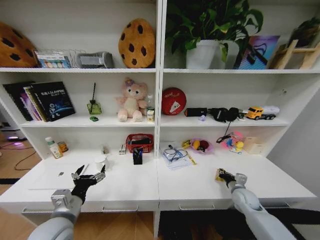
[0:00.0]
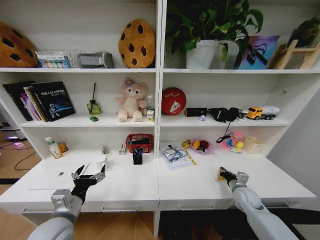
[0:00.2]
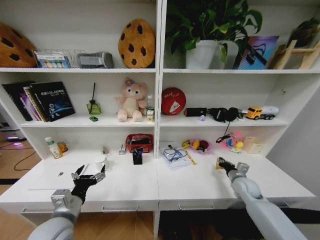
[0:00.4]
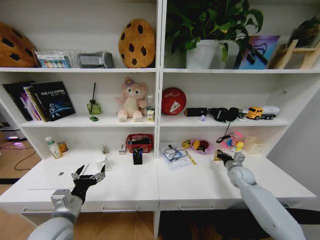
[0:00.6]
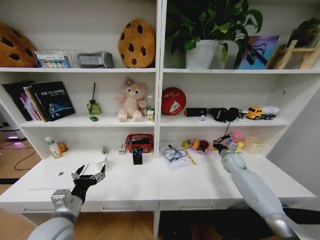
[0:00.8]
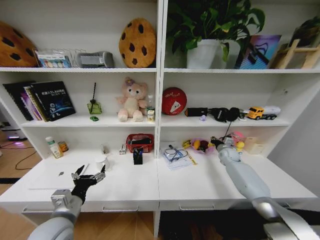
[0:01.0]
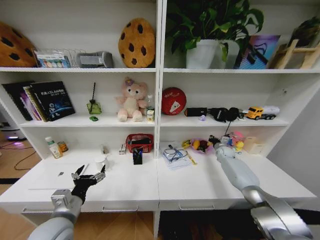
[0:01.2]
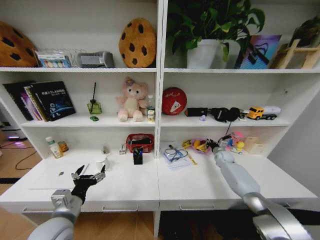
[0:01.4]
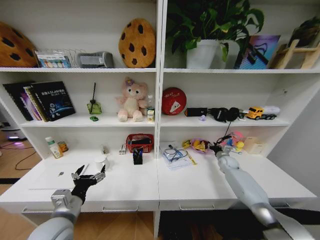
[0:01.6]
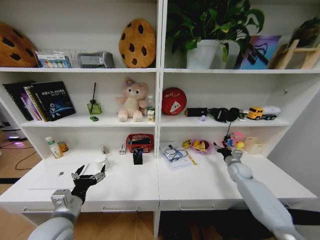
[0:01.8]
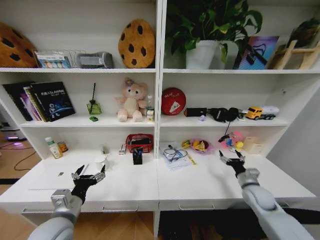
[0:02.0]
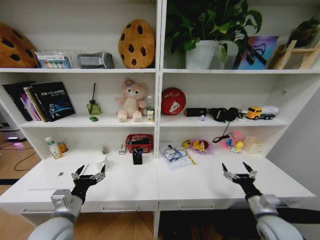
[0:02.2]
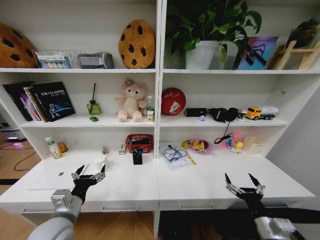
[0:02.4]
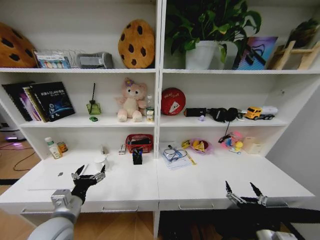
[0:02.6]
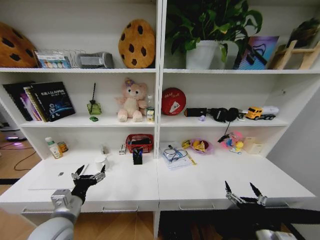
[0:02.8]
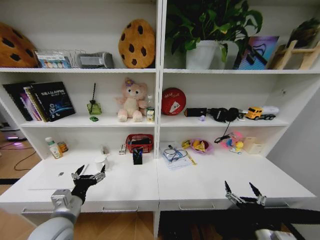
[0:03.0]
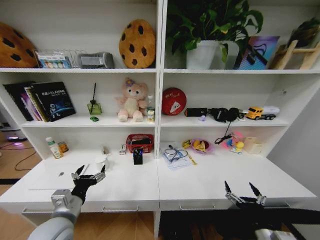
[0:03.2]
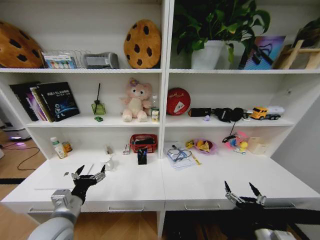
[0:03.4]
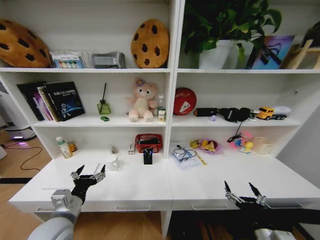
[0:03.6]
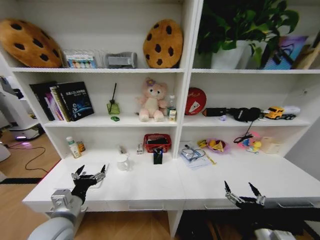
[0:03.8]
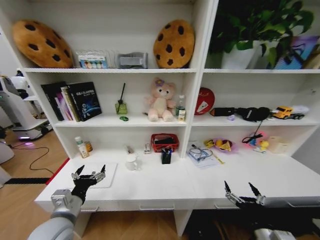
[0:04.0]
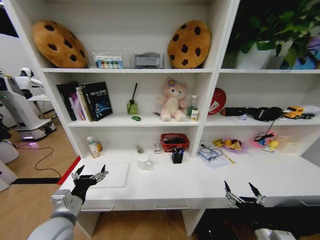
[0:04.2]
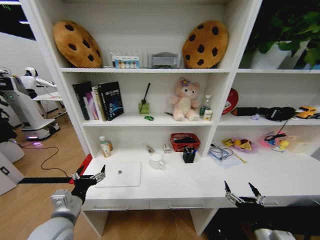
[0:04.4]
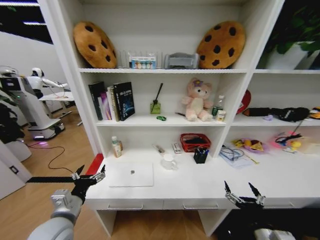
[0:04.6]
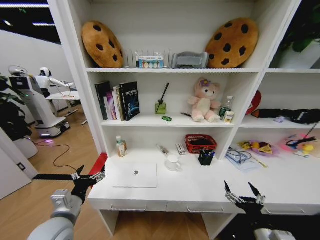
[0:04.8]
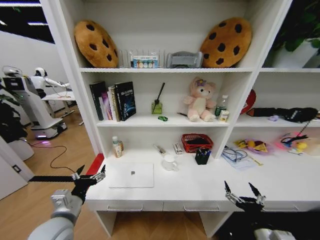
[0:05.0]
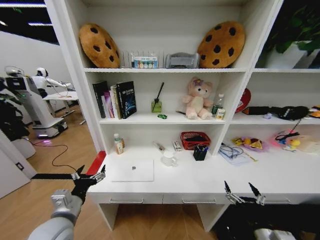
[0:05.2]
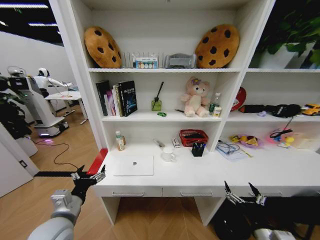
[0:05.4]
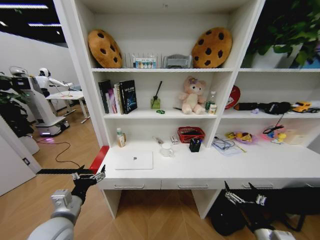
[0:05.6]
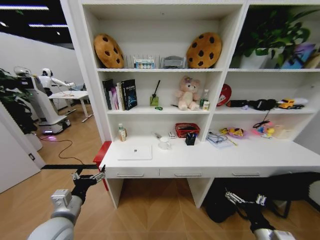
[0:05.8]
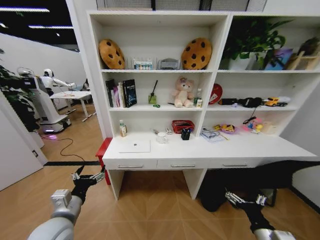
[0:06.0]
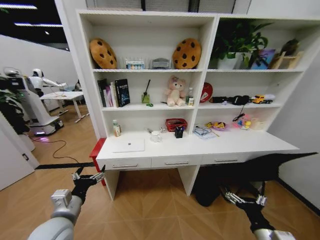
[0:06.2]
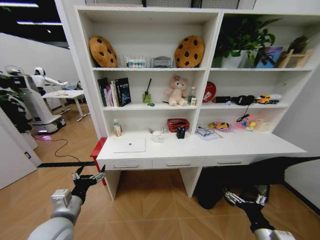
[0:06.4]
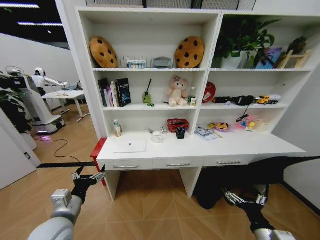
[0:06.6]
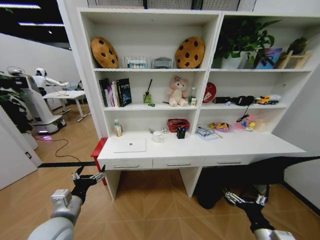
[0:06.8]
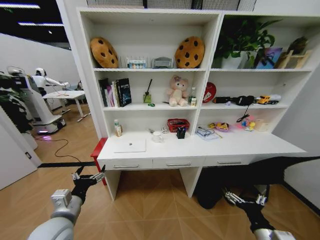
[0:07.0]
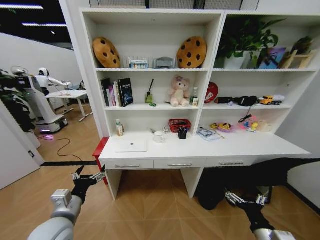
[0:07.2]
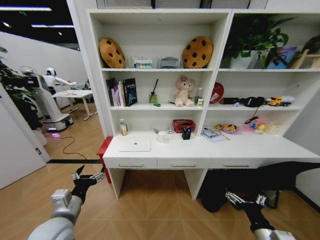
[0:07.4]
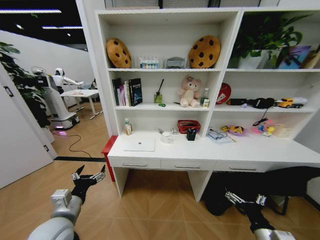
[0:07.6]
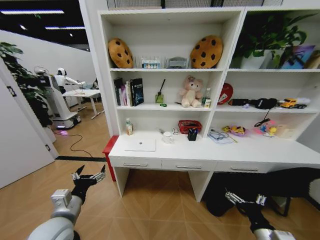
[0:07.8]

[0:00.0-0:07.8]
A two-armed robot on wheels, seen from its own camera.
Task of the whole recording: Organize the objects on the table.
0:00.0 to 0:01.6: The right gripper goes about 20 cm forward.
0:01.6 to 0:03.2: The right gripper moves backward, approximately 40 cm, and opens up.

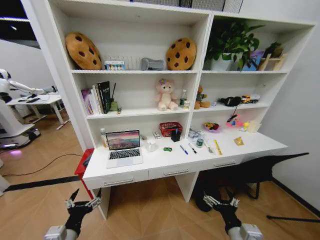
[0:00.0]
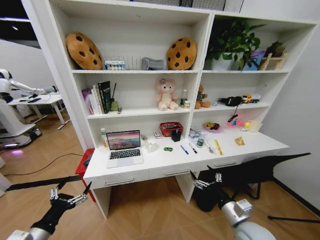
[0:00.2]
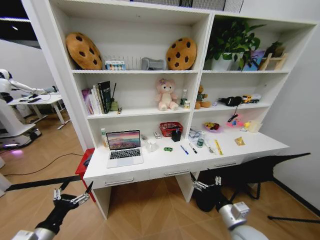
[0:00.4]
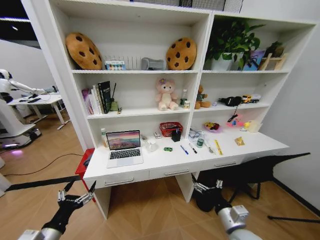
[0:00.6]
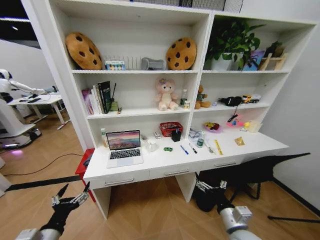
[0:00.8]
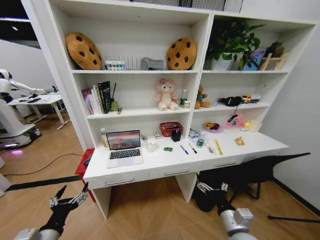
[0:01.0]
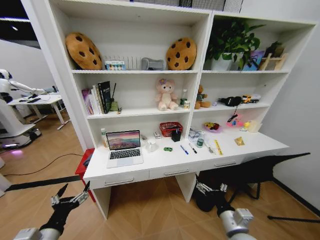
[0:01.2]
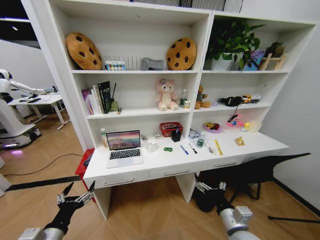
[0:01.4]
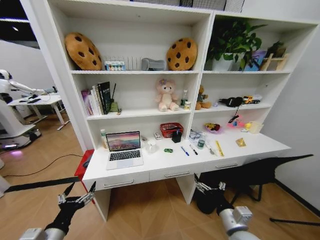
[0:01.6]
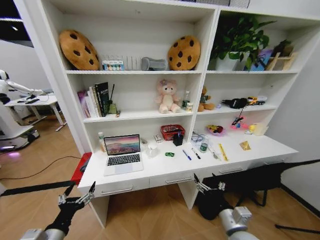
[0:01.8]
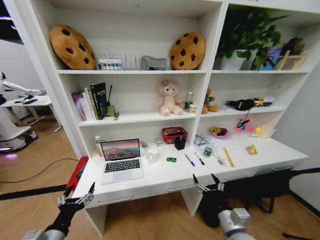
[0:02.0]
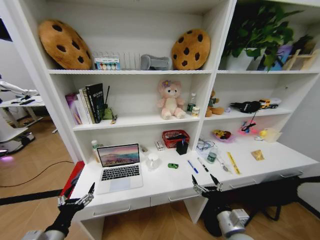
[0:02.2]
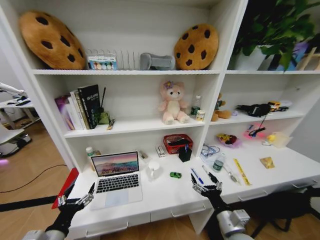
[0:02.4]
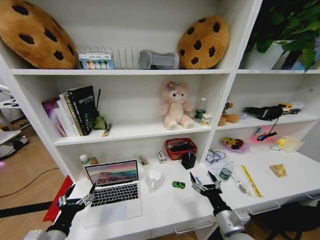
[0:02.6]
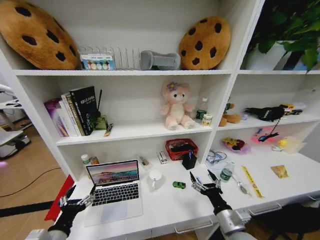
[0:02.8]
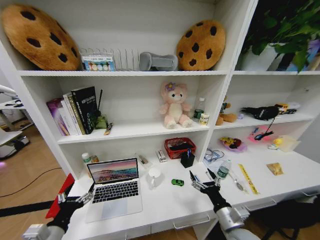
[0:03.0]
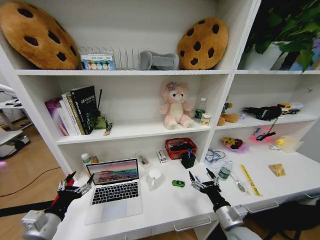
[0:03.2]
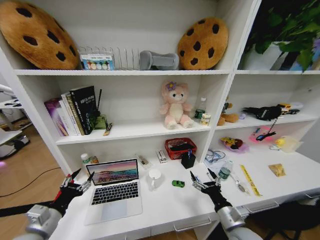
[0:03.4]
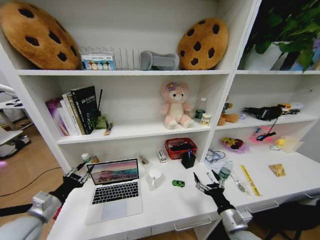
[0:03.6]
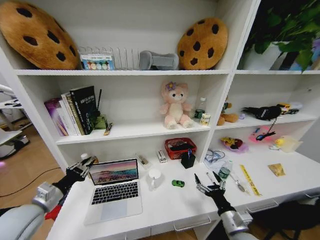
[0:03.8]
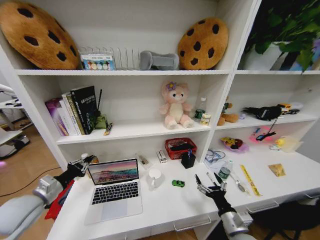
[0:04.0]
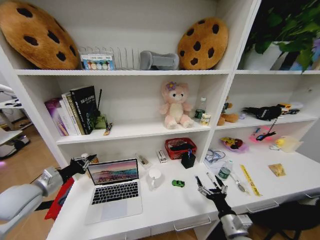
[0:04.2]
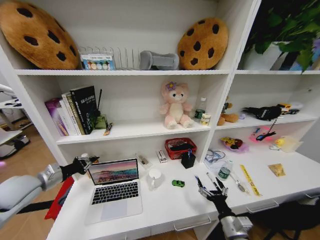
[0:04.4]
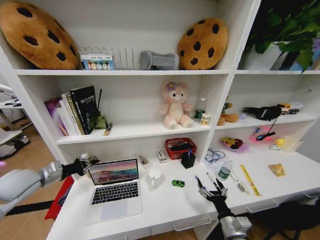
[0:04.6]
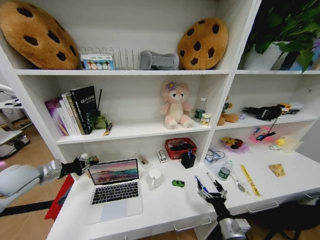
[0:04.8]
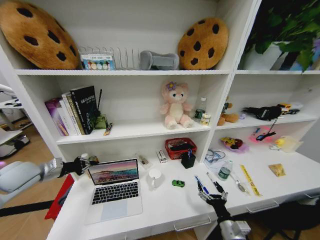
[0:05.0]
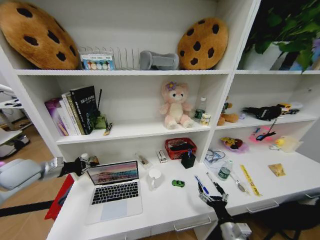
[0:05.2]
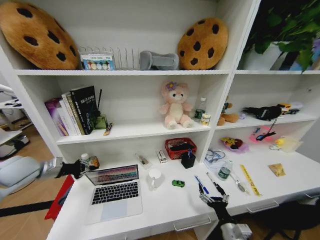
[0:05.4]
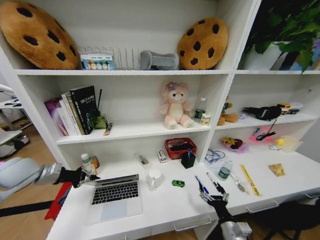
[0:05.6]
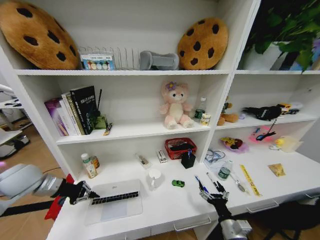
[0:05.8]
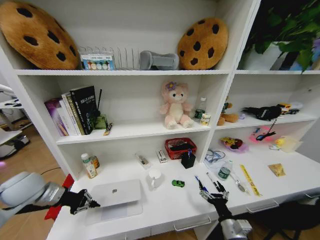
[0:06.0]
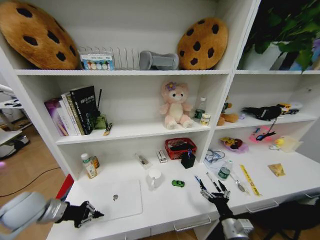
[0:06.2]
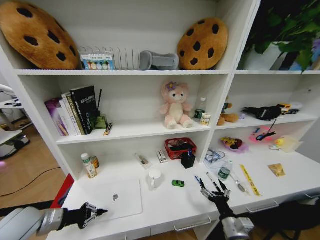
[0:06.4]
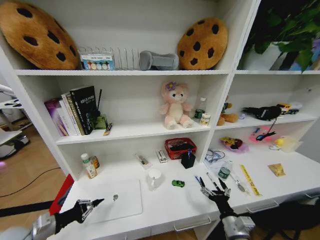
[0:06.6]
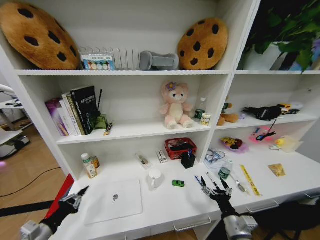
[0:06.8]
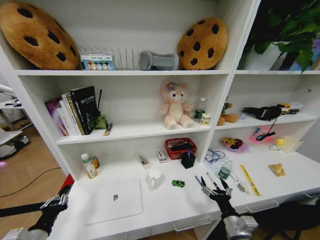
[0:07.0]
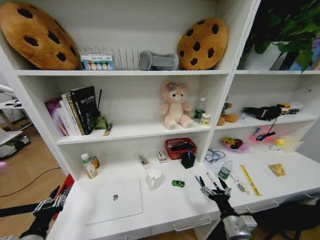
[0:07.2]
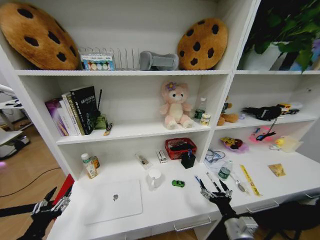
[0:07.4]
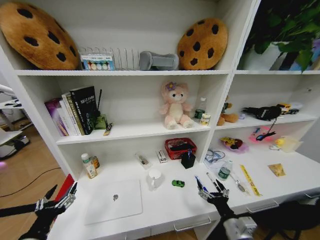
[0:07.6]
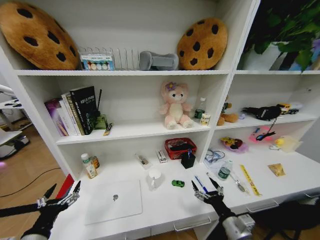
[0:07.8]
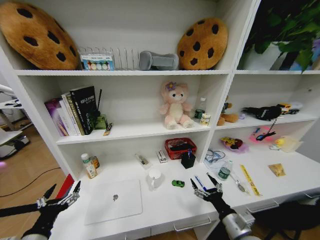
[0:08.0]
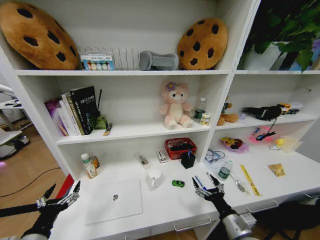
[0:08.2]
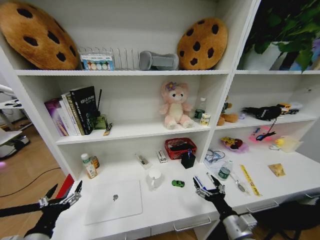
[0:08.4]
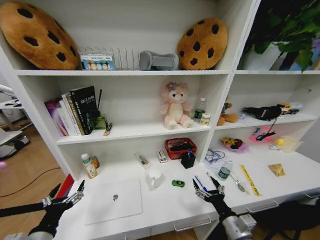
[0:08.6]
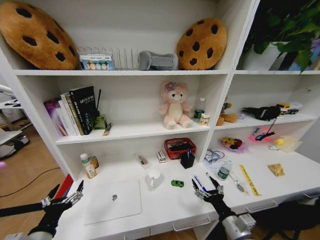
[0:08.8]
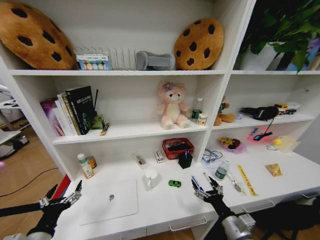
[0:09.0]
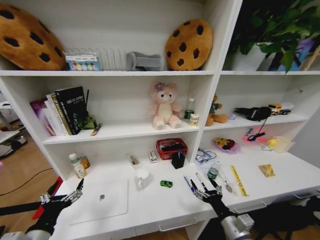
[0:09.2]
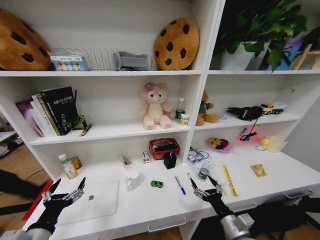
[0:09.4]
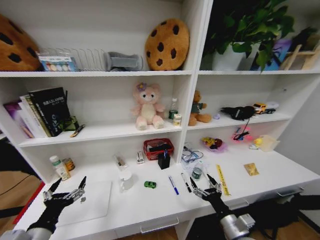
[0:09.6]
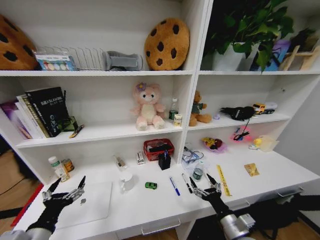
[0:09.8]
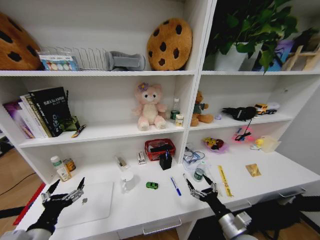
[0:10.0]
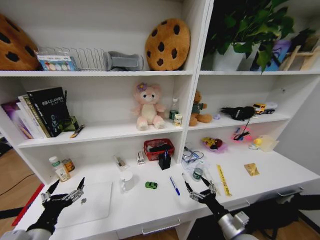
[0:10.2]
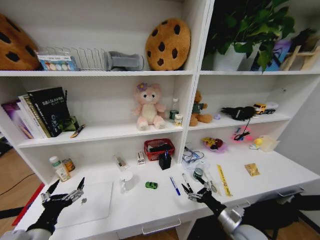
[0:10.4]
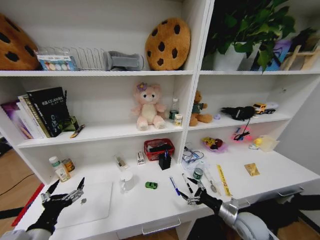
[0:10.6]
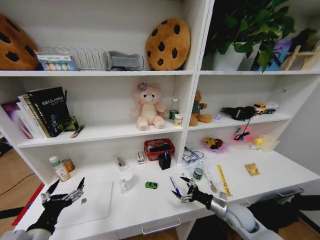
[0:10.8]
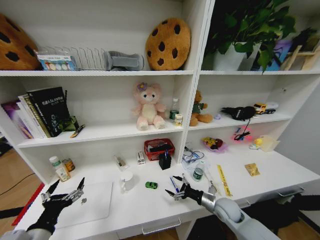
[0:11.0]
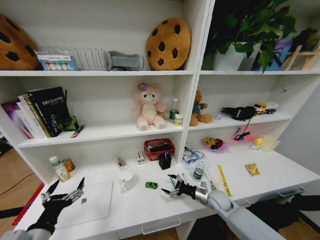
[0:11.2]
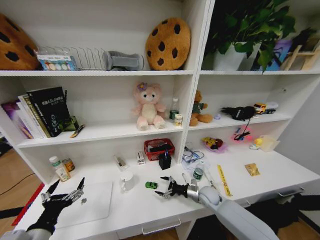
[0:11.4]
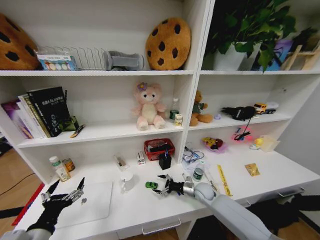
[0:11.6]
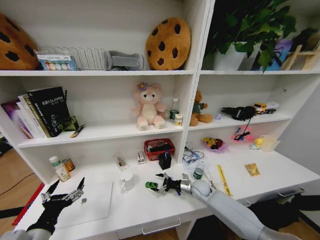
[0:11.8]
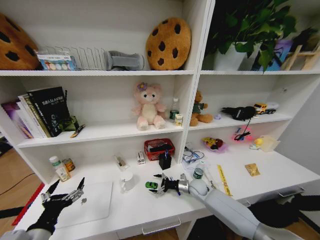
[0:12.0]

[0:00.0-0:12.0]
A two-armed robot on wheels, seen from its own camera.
Task of the whole recording: Organize the objects on the table.
0:03.0 to 0:04.4: The right gripper ends up roughly 5 cm from where it was. The left gripper moves forward, to the left and upward, about 25 cm, and closes its fingers.
0:06.0 to 0:07.6: The right gripper moves upward, approximately 5 cm. Meanwhile the left gripper is displaced backward and downward by approximately 25 cm, and opens.
0:07.6 to 0:09.0: There are only small adjustments of the grippers.
0:09.0 to 0:10.4: The right gripper goes some 5 cm forward.
0:10.4 to 0:12.0: The right gripper moves forward and to the left, some 25 cm.

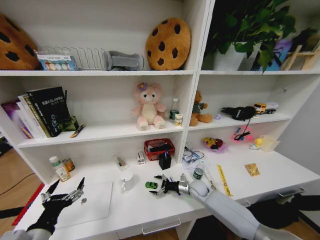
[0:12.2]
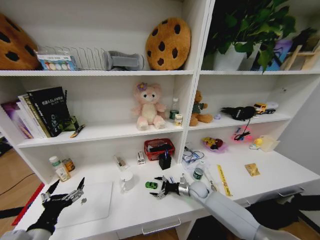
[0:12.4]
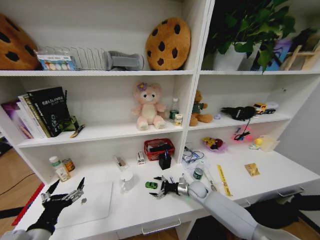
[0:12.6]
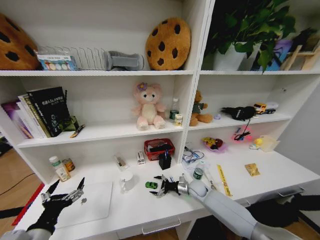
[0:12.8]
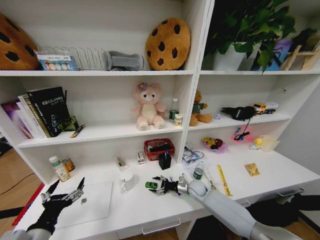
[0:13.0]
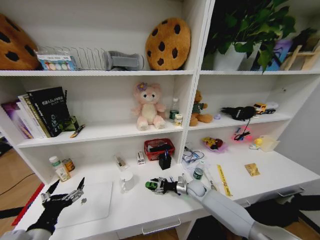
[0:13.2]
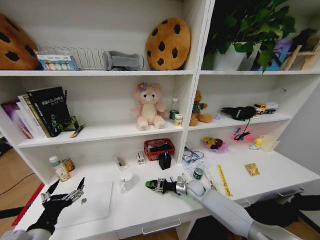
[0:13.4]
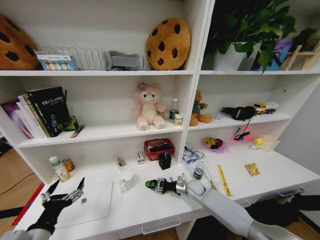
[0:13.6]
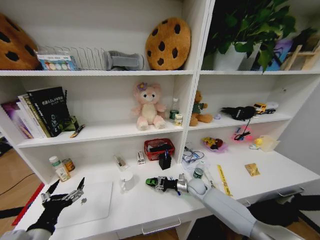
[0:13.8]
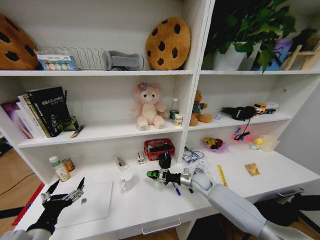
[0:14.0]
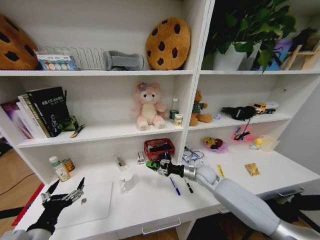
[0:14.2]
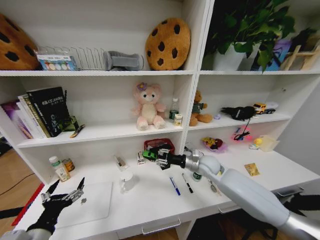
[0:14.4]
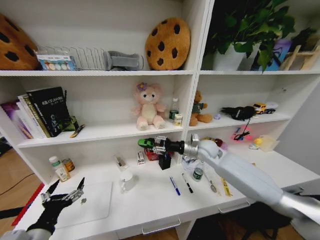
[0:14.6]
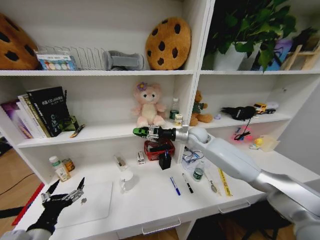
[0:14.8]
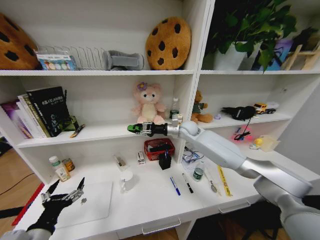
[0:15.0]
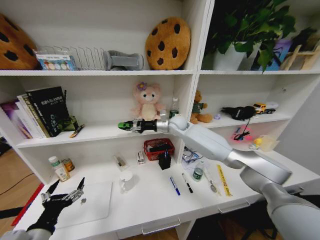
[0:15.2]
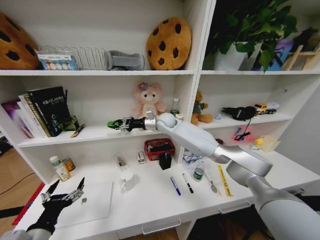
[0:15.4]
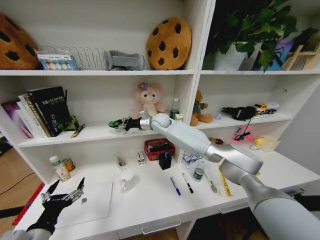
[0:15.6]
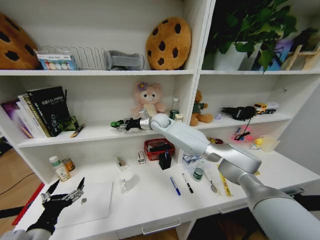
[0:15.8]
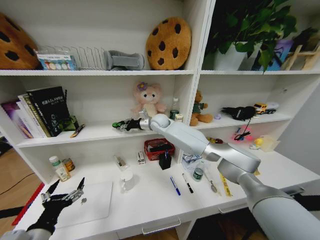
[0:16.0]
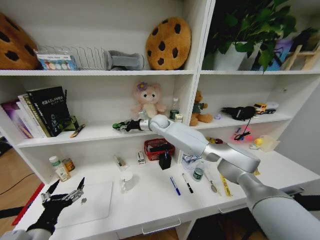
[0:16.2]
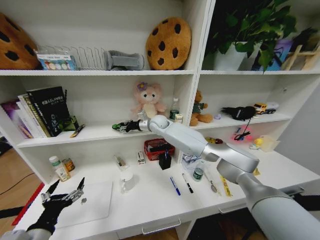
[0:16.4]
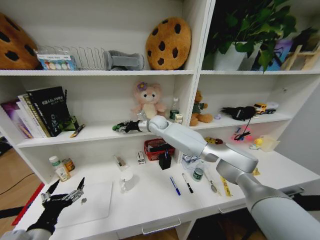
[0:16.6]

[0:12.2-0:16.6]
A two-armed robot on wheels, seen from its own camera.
Task of the whole recording: Organize the objects on the table.
0:12.2 to 0:13.6: The right gripper closes its fingers.
0:13.6 to 0:15.2: The right gripper is displaced upward and forward by some 35 cm.
0:15.2 to 0:16.6: The right gripper shifts roughly 10 cm to the left.
